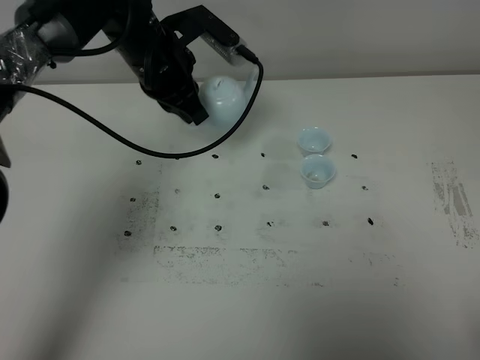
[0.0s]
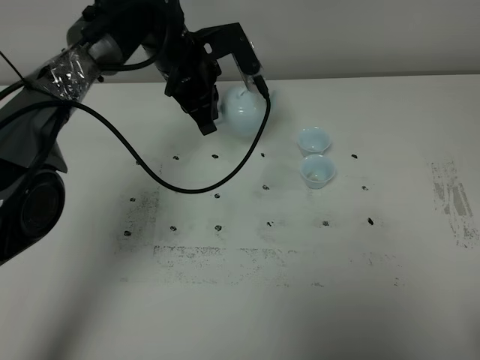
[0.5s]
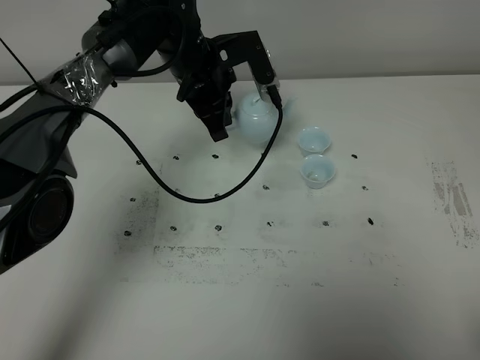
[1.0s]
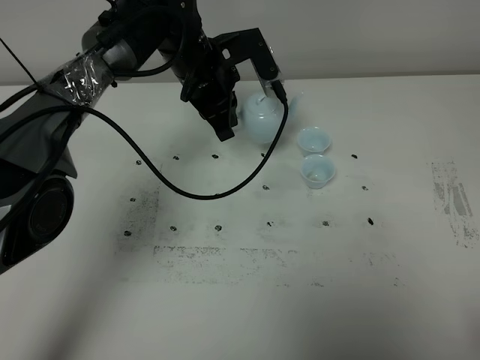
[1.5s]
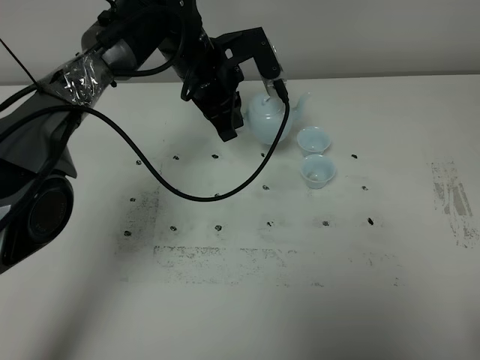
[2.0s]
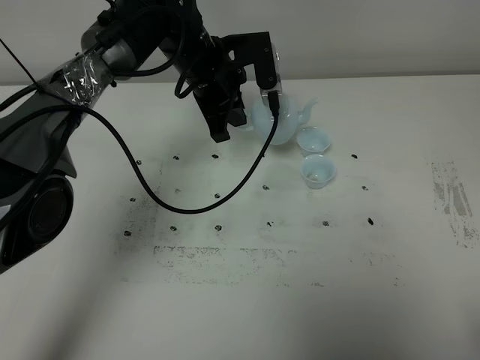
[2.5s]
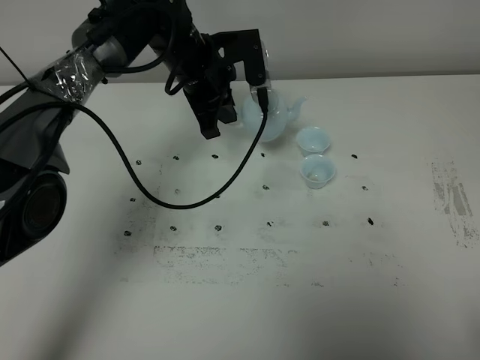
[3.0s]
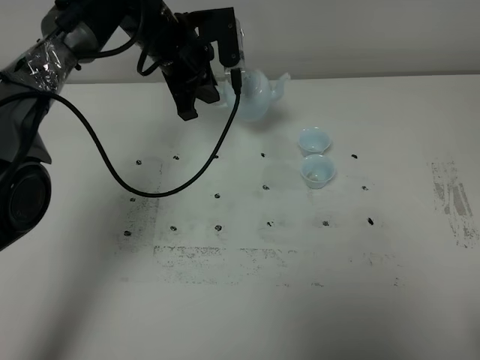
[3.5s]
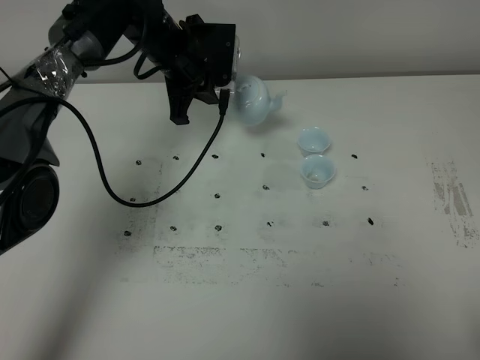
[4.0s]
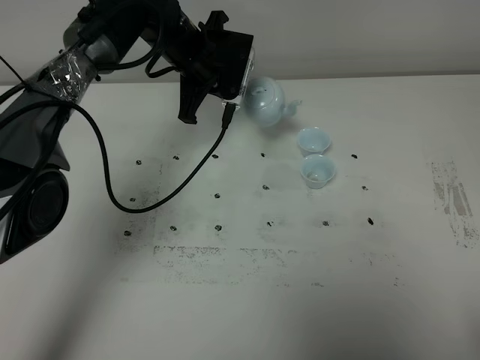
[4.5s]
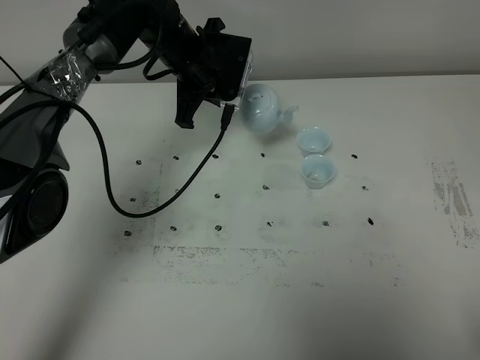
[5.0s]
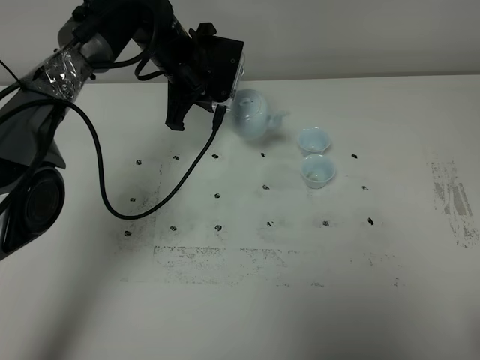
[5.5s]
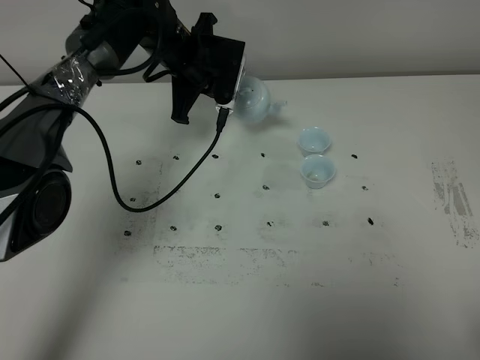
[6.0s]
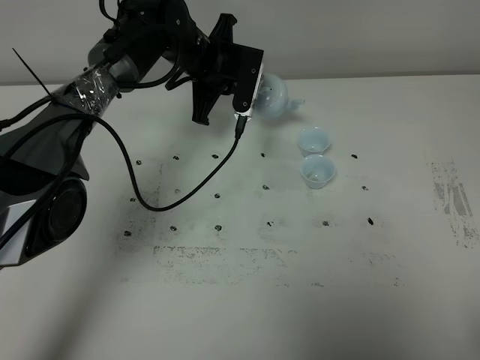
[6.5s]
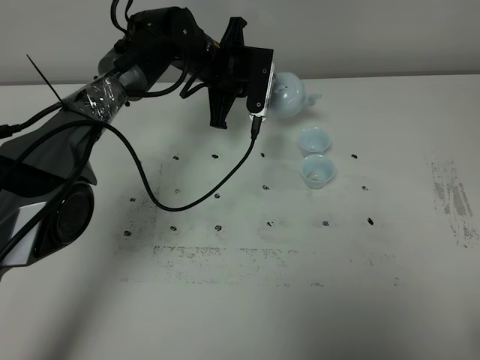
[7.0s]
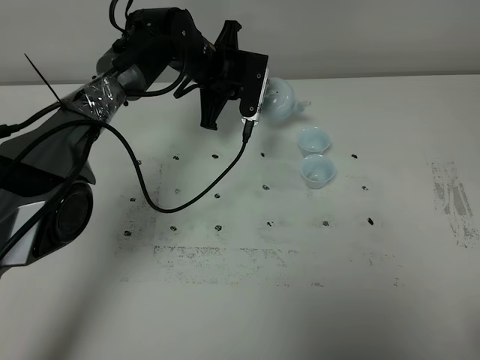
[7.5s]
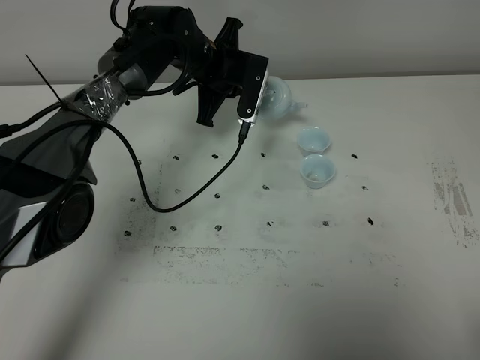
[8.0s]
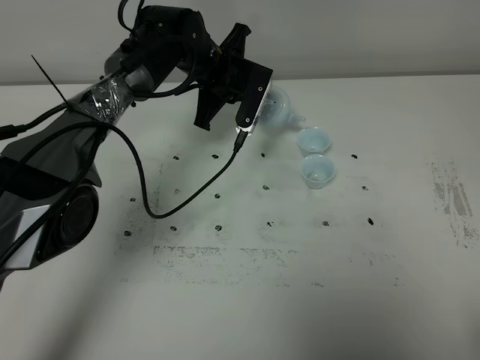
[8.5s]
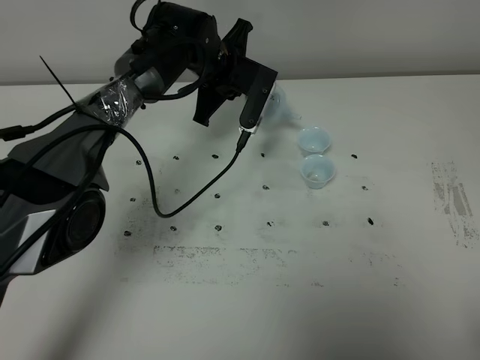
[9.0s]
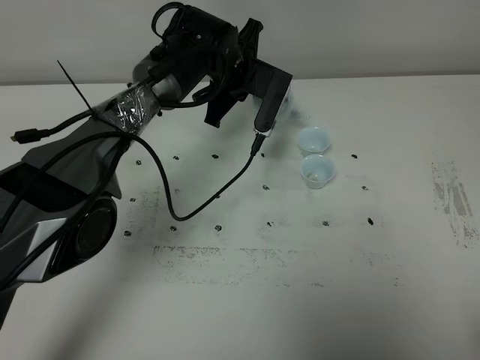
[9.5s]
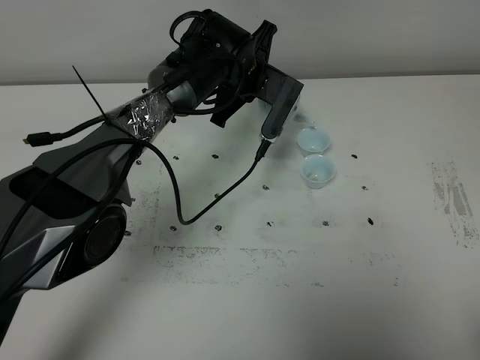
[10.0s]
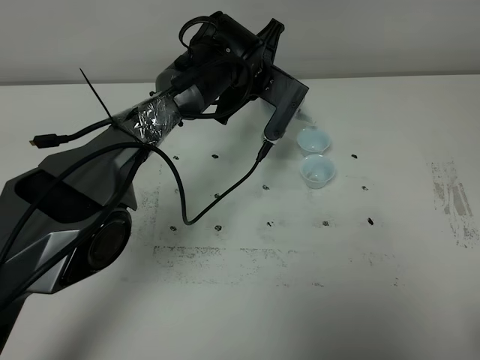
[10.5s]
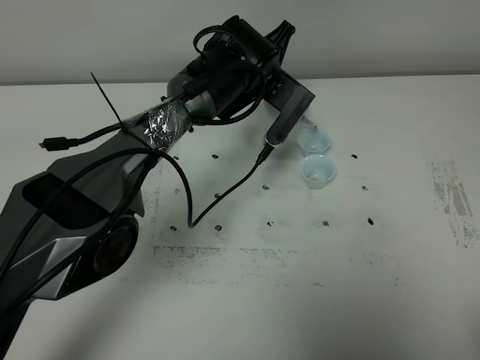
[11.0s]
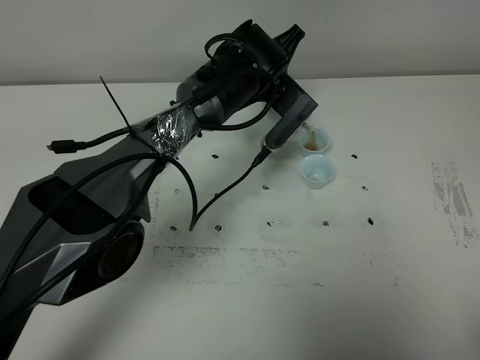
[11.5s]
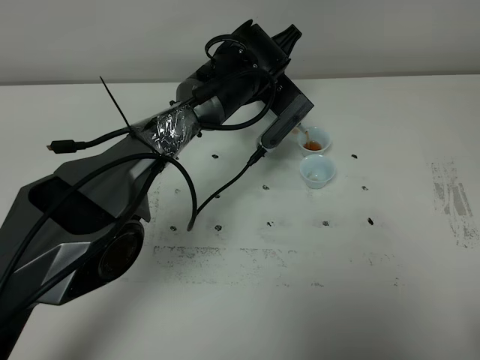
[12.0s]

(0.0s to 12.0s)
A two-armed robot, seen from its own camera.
Task of the whole recording: grasp the blue porcelain teapot and pour the tea into the two blue porcelain teacups one by one, put the blue porcelain teapot back in its original place.
0.0s - 2.0s: The left gripper moves some 5 cm.
2.0s - 4.0s: The left gripper shifts by about 5 cm.
4.0s - 6.0s: There are only small adjustments of the grippers.
6.0s - 8.0s: The grippers make only small movements.
8.0s - 10.0s: The left gripper shifts roughly 5 cm to the right.
10.0s - 12.0s: The grippers stay close to where they were, moving slightly.

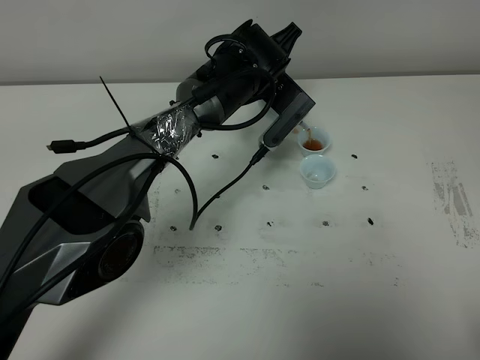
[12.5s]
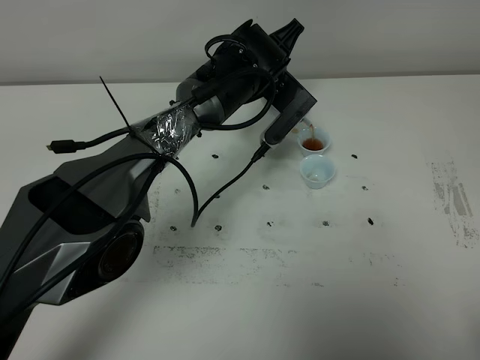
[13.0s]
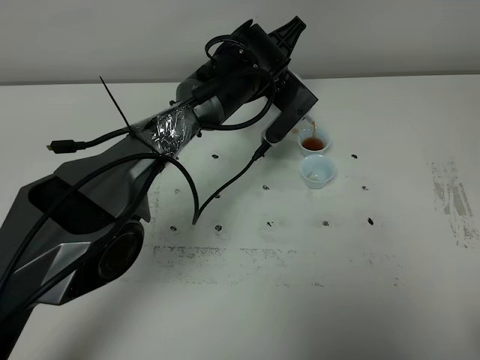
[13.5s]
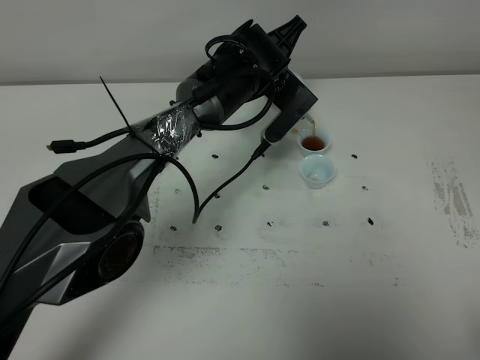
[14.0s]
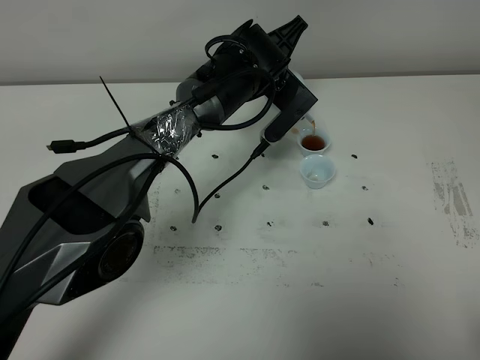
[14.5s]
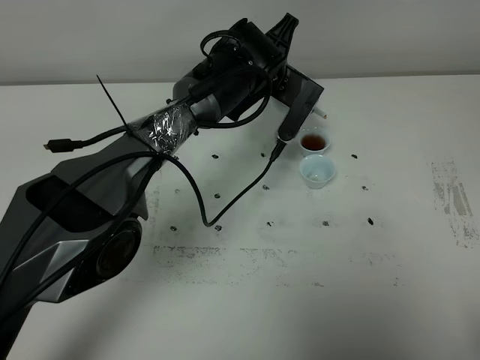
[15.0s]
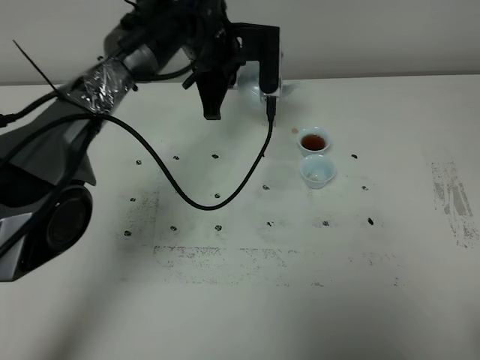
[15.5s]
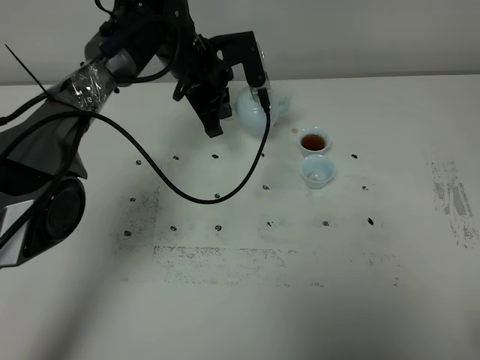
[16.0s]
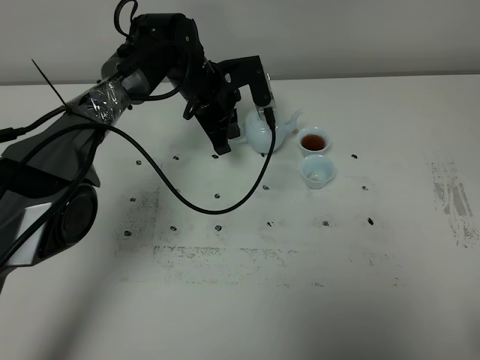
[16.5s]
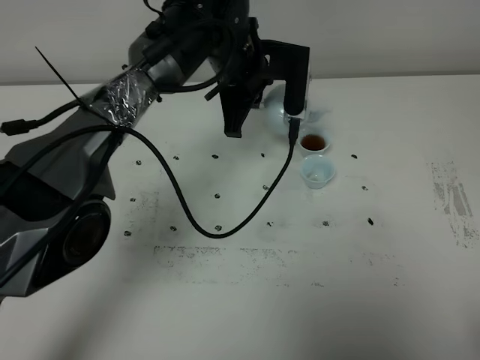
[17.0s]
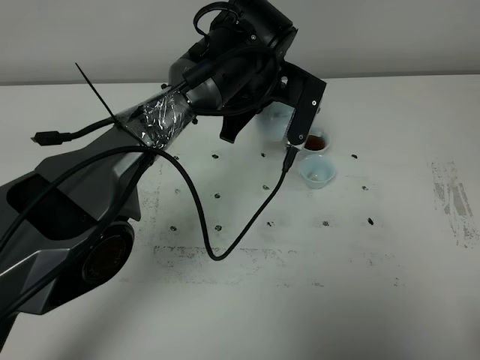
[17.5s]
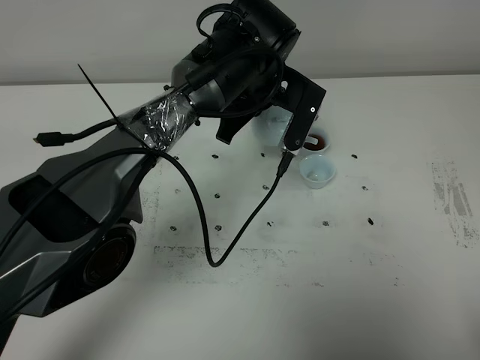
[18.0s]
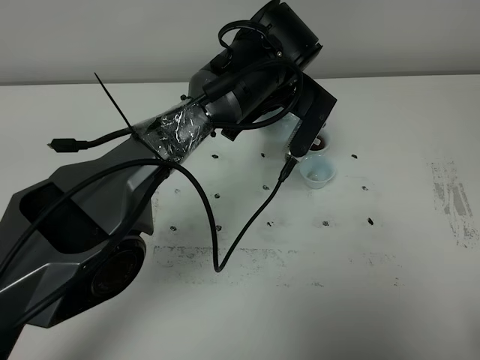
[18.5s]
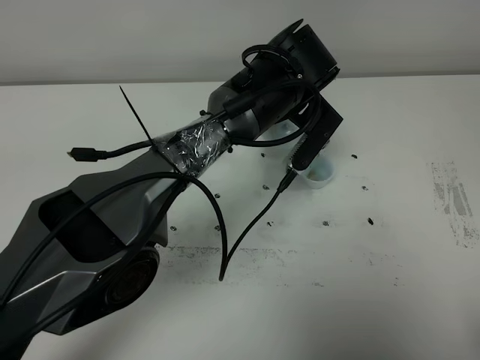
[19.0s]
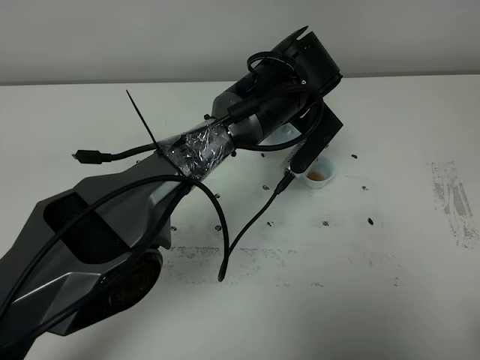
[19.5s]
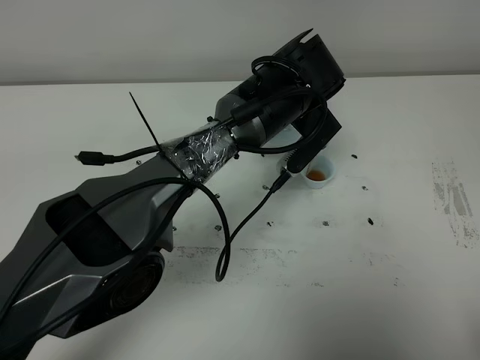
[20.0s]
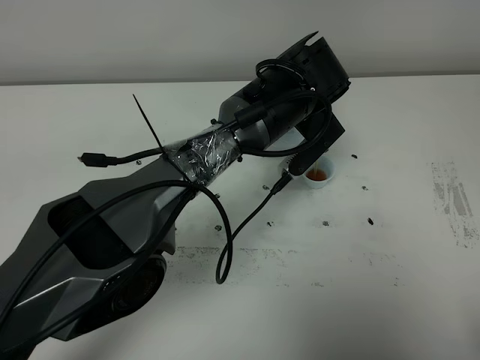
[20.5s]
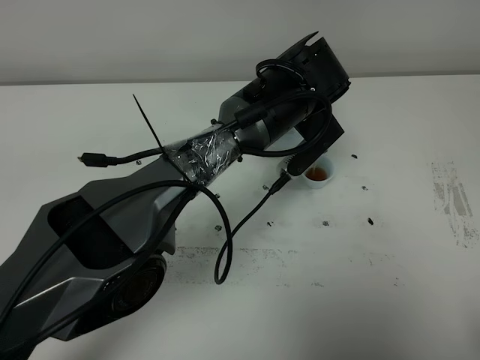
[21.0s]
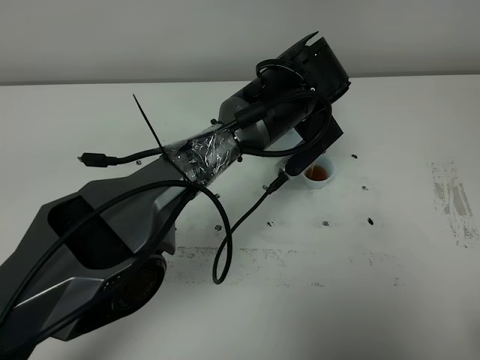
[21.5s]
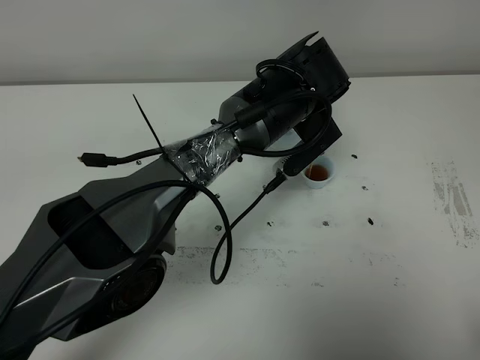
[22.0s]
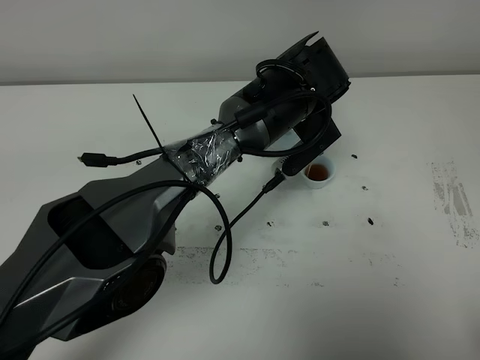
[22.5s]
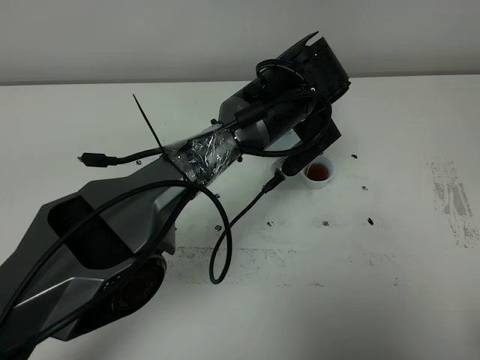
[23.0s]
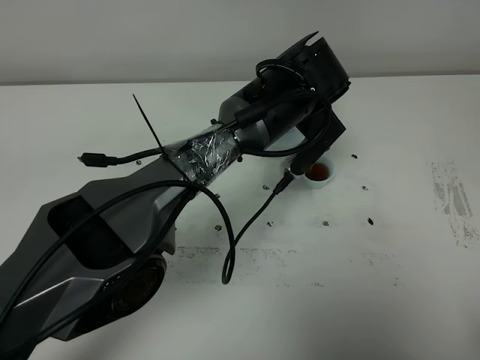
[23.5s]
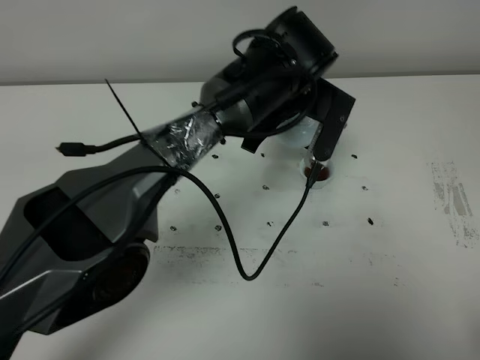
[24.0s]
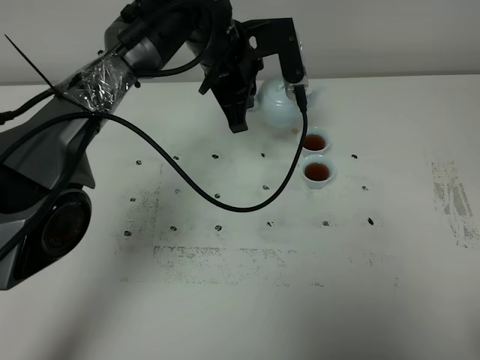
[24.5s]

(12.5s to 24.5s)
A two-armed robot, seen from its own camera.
Task of the whole recording: grasp the blue porcelain teapot and pour the tea into the two blue porcelain teacups one by one, put the blue porcelain teapot back in its original place.
Step, 12.5s - 24.0s: Pour tea into the teacup with the left gripper.
12.5s - 14.5s: Neither gripper changes place.
14.5s - 16.5s: The left gripper is displaced to the left by some 10 cm.
16.5s - 18.5s: The left gripper moves to the right, backward and upward, some 15 cm.
20.5s - 22.5s: The two grippers keep their place.
22.5s - 24.5s: The left gripper travels to the left by roughly 10 cm.

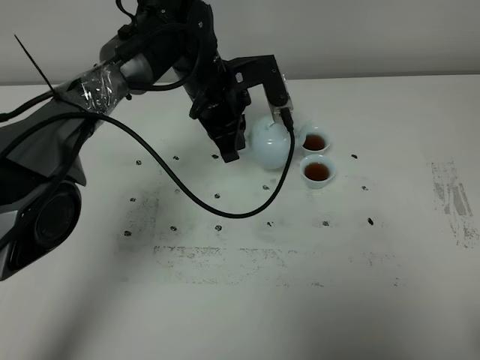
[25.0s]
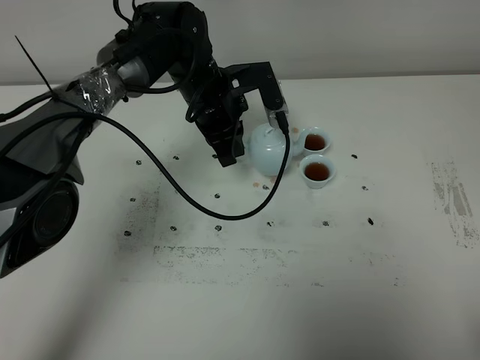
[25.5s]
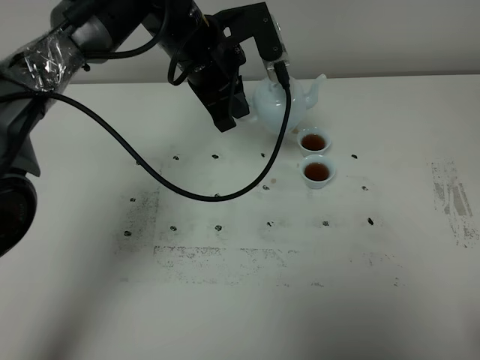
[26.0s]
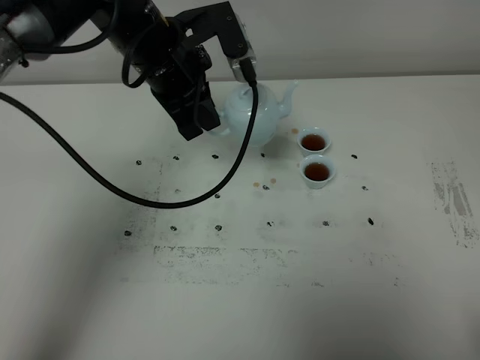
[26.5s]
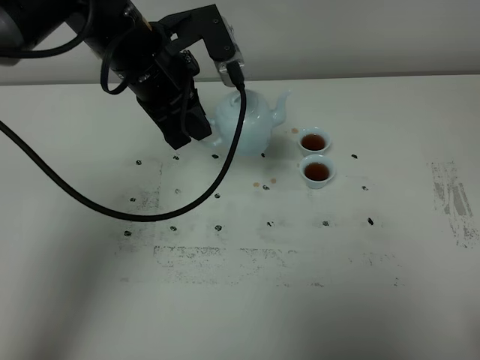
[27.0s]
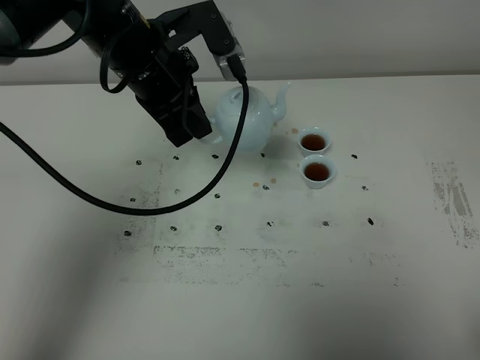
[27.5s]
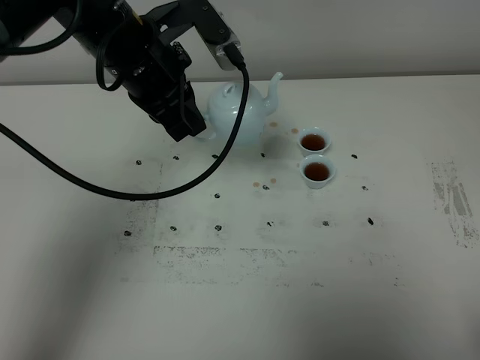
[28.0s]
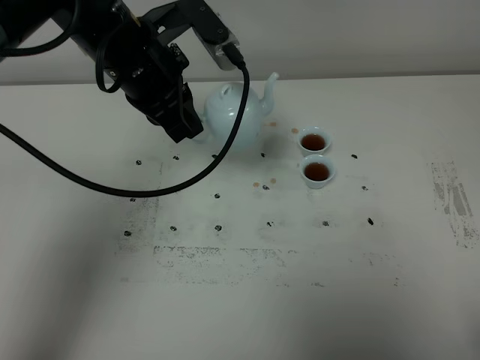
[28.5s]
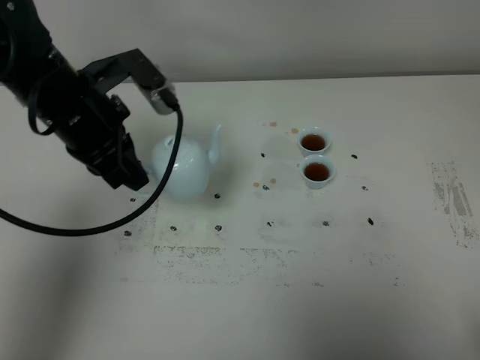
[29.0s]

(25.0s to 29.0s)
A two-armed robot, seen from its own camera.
Task of the whole recording: grasp the blue porcelain teapot and pour the tea into the two blue porcelain teacups one by one, put the blue porcelain teapot back in its original place.
25.0s - 27.0s: The left gripper is displaced upward, backward and to the left by some 15 cm.
27.0s - 29.0s: The left gripper travels to the left by approximately 10 cm.
